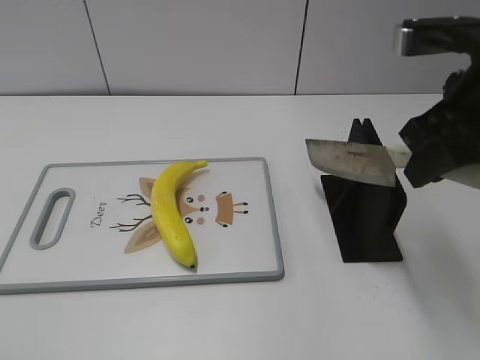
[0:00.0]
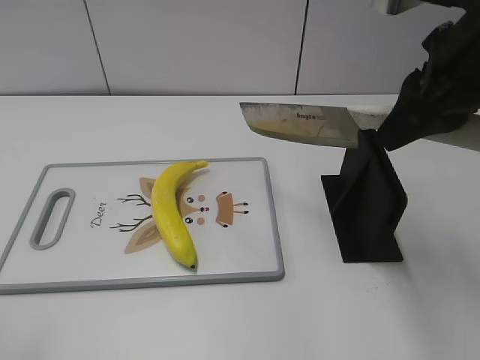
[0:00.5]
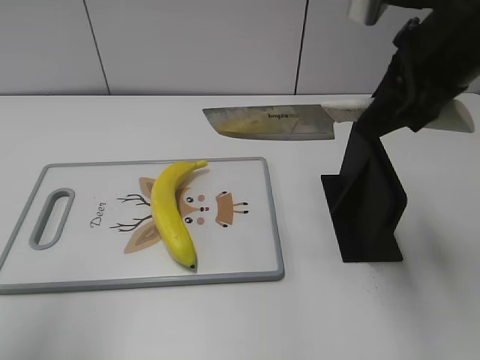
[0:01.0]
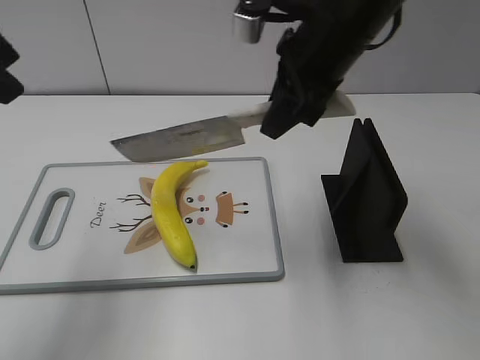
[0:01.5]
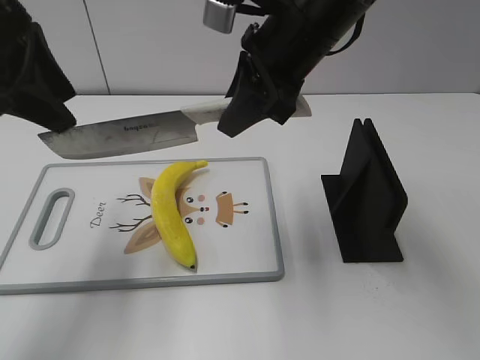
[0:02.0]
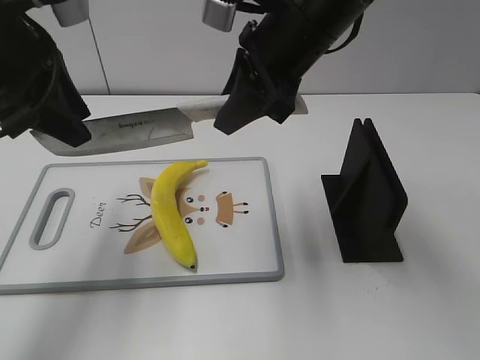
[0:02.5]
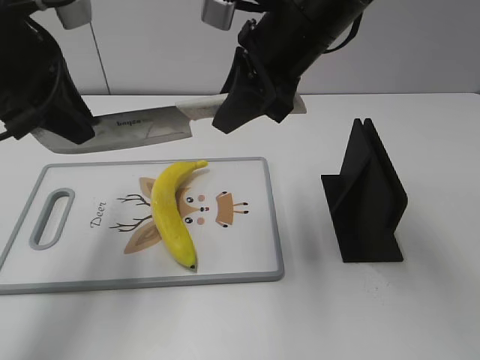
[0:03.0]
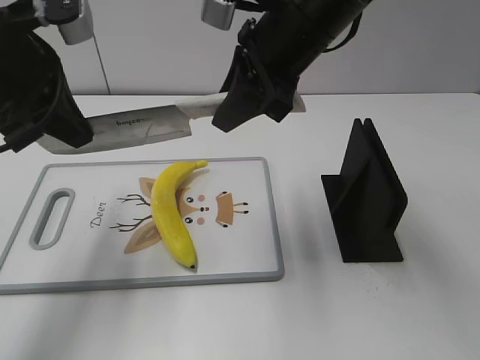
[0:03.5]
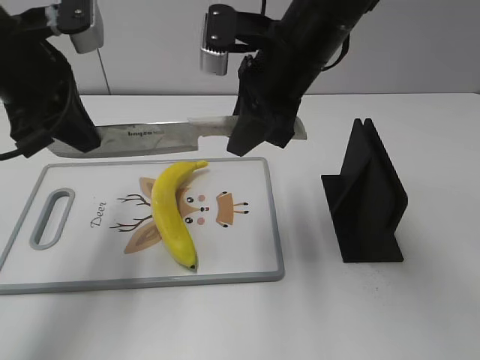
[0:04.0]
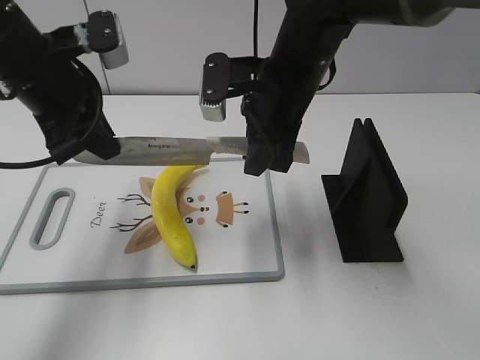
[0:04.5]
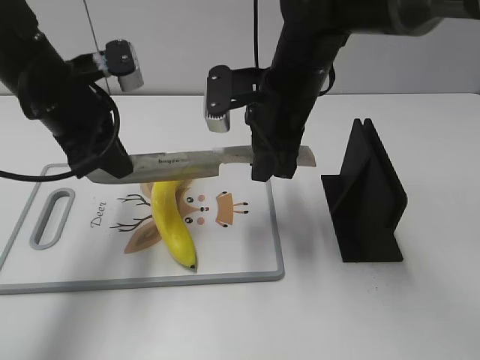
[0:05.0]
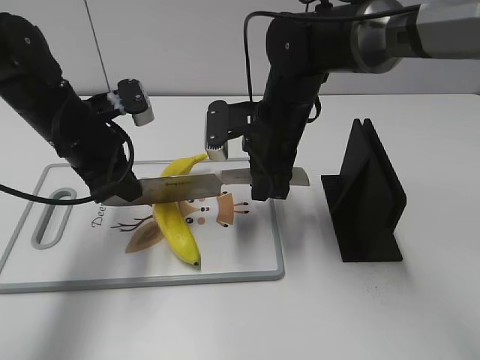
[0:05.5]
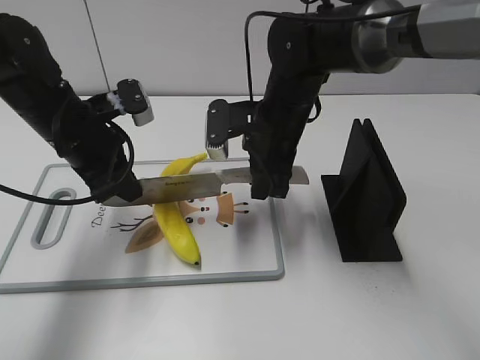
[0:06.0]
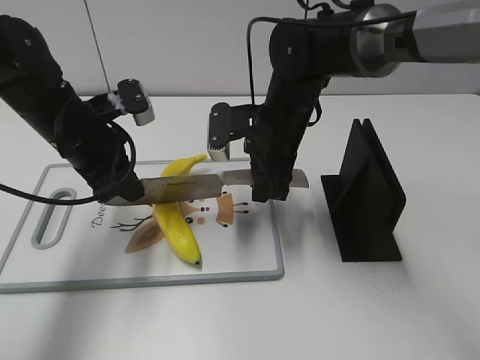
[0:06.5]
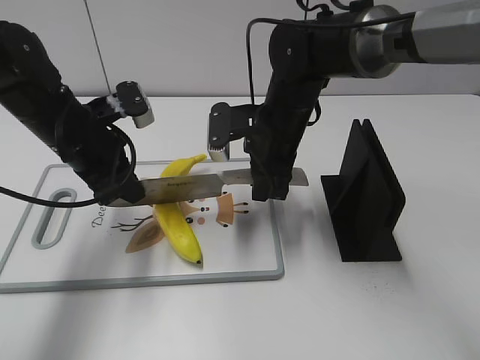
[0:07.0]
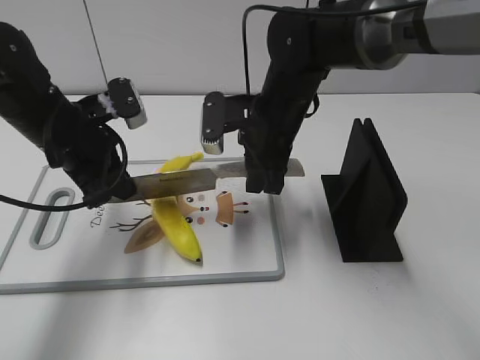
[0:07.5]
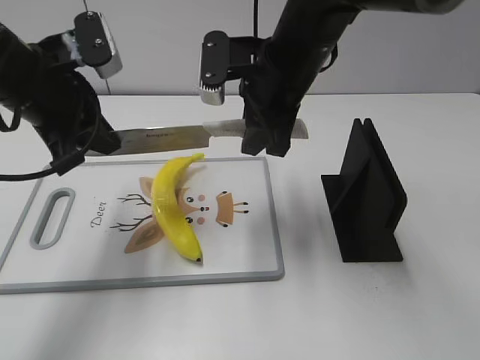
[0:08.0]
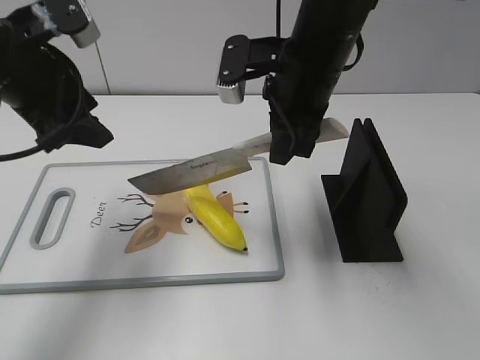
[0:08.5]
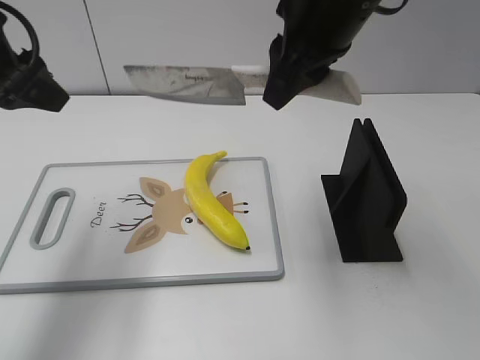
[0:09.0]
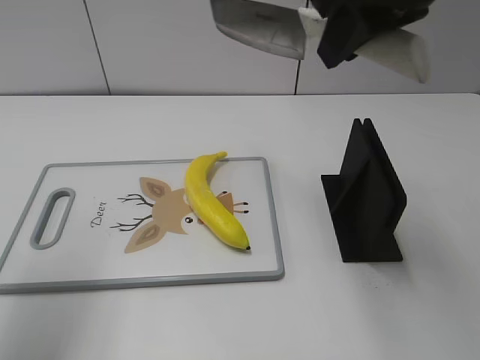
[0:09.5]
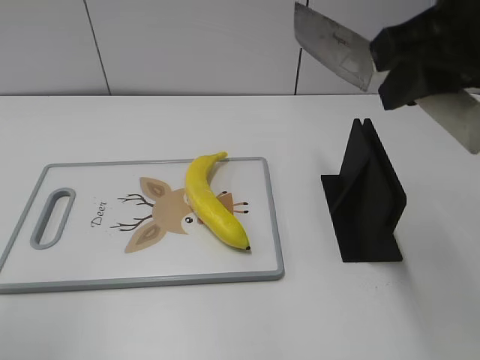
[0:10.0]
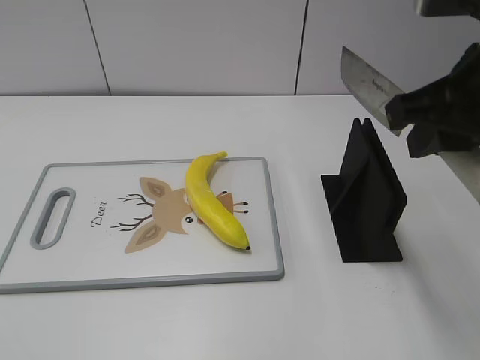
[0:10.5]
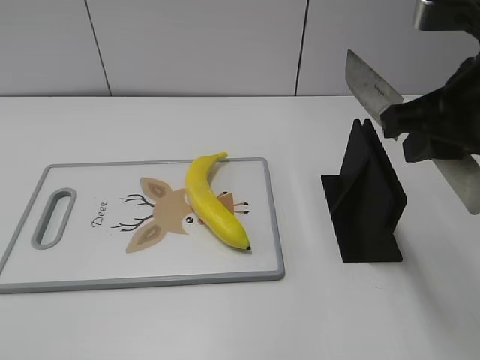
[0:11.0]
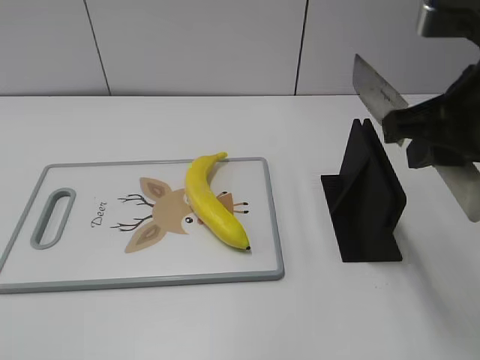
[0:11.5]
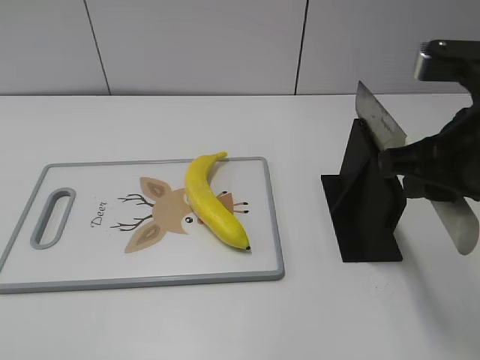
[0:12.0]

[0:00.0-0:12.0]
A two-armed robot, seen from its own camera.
Task of the whole recording: cut plastic banana.
Step, 0:00.5 to 0:05.0: Lift the knife with your right hand.
Step, 0:06.0 to 0:09.5: Cut the banana with your right hand.
Step, 0:10.0 to 0:11.0: Lift the knife with your right hand.
0:00.0 to 0:02.0: The left gripper goes roughly 25 cm forward; the right gripper moves to the left and forward, roughly 15 cm.
0:02.0 to 0:04.0: The left gripper shifts by approximately 5 cm, and closes its fingers.
0:04.0 to 0:06.0: The grippers both shift downward by roughly 10 cm.
0:06.0 to 0:08.0: Both grippers move upward, approximately 10 cm.
0:08.0 to 0:10.0: The left gripper moves backward, upward and to the left, roughly 25 cm, and opens up. The right gripper shifts about 20 cm backward, upward and to the right.
0:10.0 to 0:12.0: The right gripper moves downward, approximately 10 cm. Meanwhile the left gripper shifts some 20 cm backward and downward.

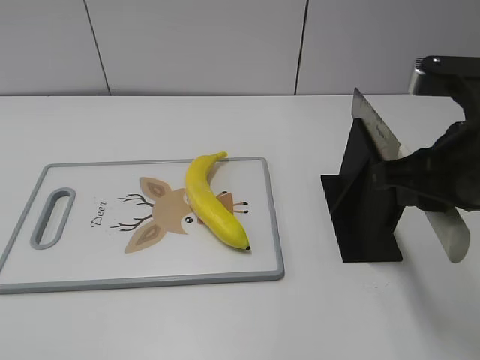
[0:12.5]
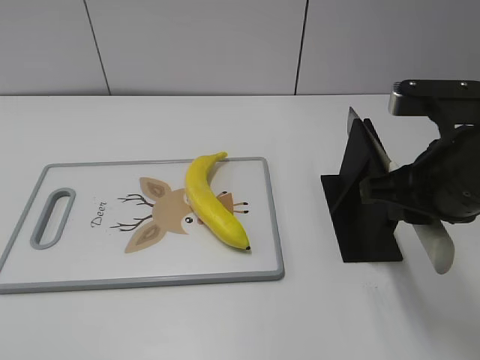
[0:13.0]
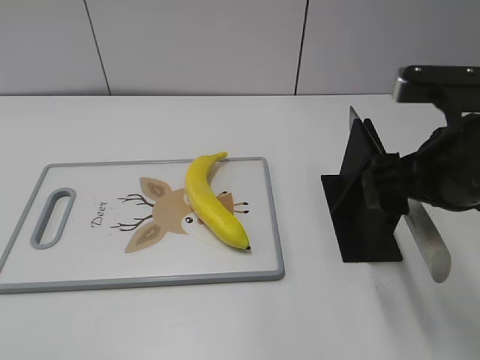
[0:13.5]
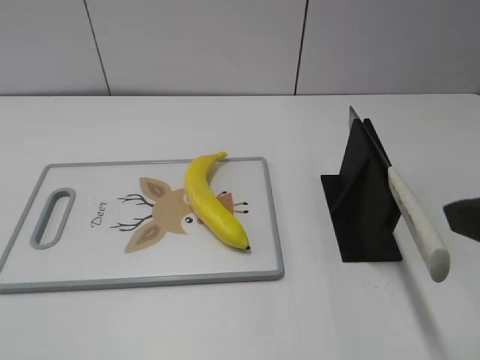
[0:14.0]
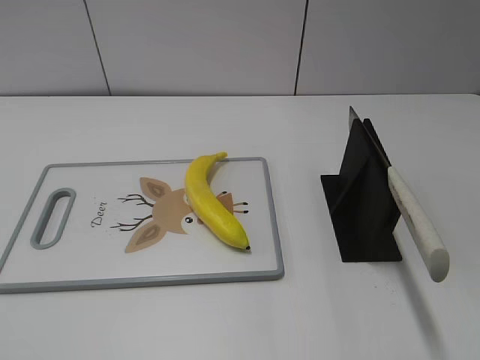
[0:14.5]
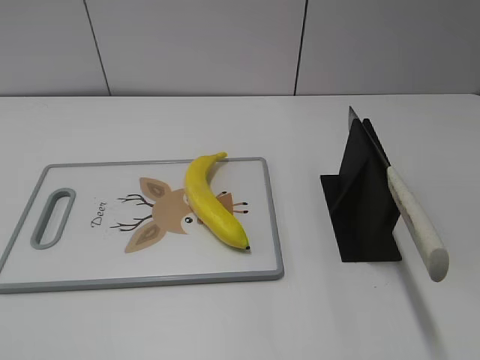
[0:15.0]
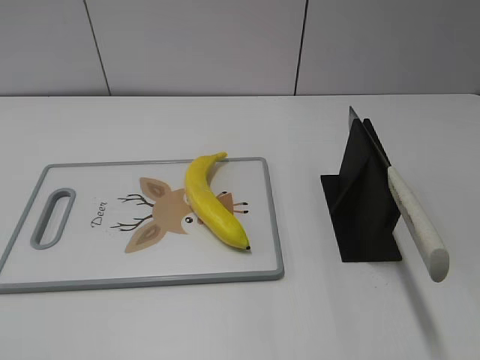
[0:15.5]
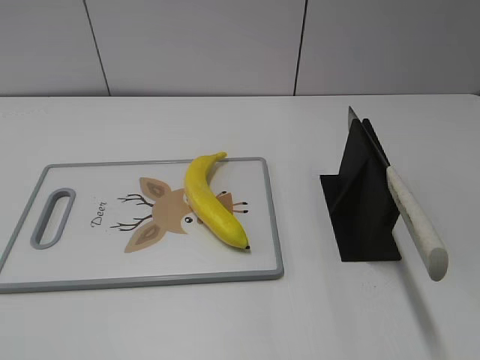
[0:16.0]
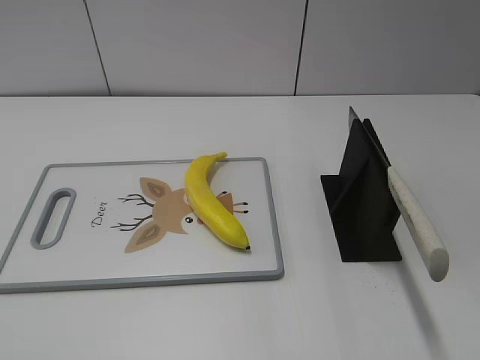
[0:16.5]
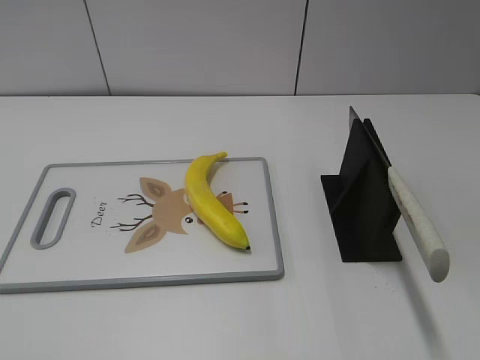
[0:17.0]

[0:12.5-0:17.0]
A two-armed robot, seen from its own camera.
Task of the whole recording: cut plastic banana.
Step, 0:12.5 to 0:17.0: Place the knife on the storage rack with your right hand.
0:12.5 to 0:14.5: The right gripper is displaced backward and to the right by roughly 20 cm, and opens its fingers.
